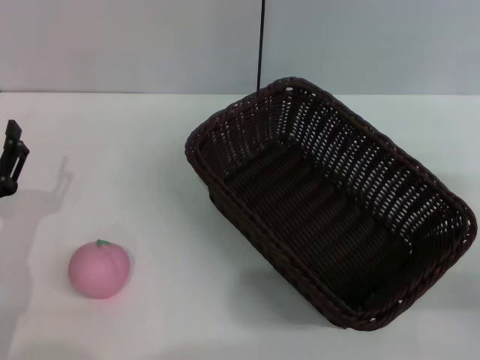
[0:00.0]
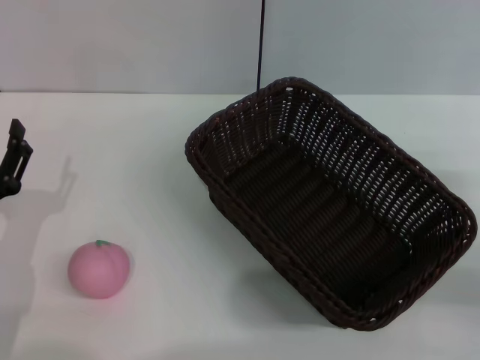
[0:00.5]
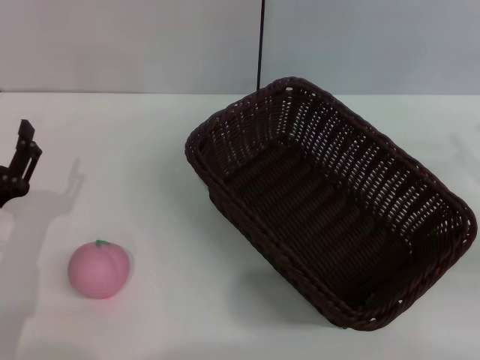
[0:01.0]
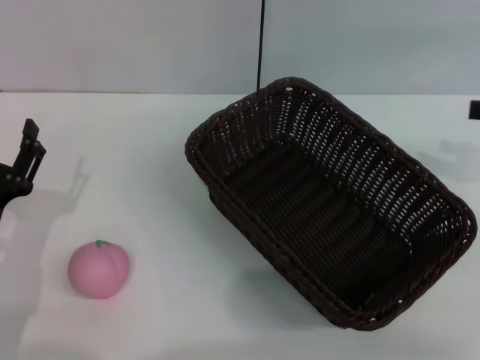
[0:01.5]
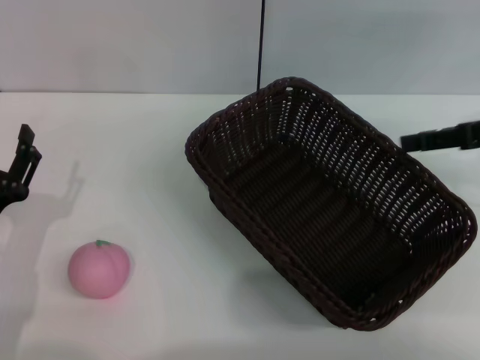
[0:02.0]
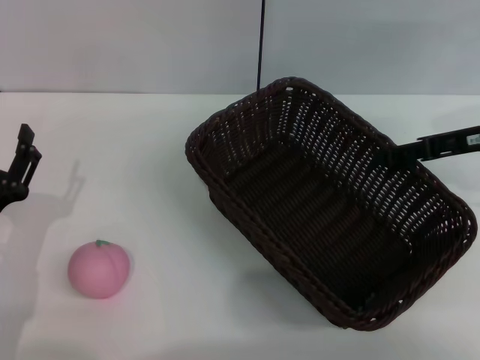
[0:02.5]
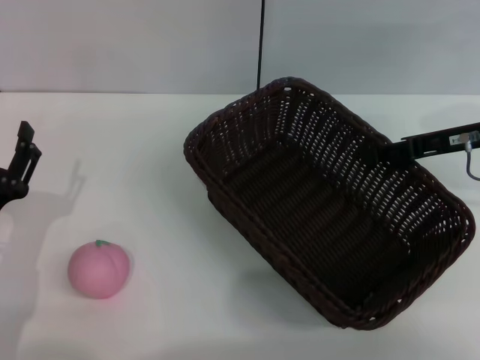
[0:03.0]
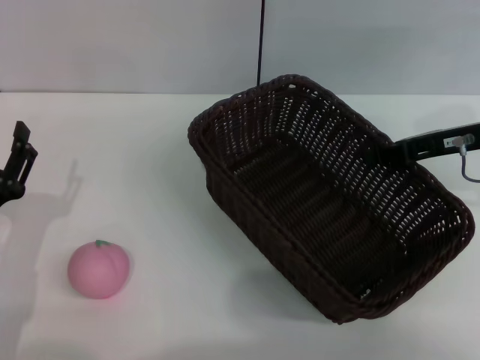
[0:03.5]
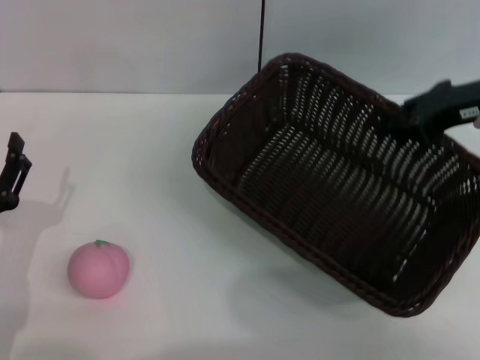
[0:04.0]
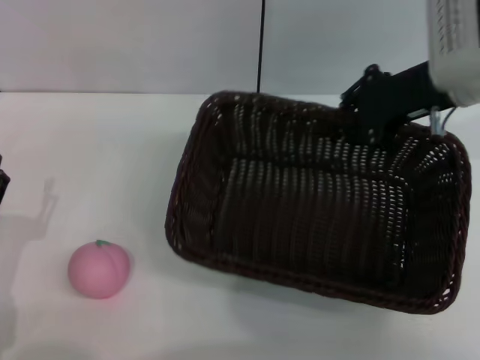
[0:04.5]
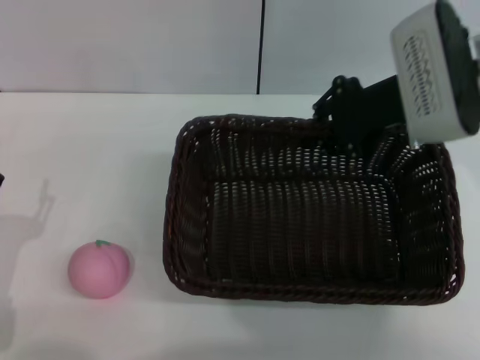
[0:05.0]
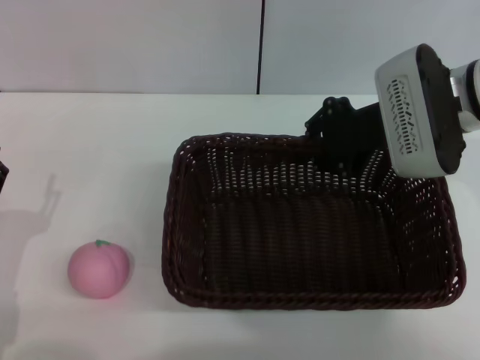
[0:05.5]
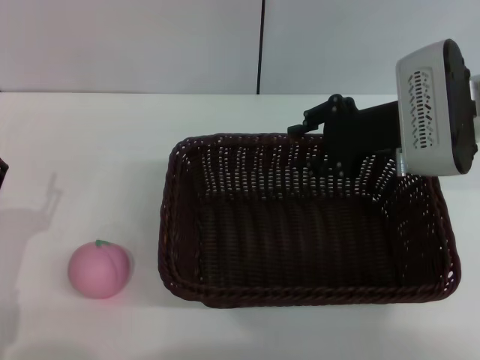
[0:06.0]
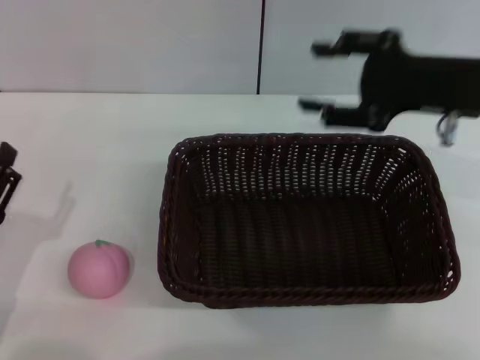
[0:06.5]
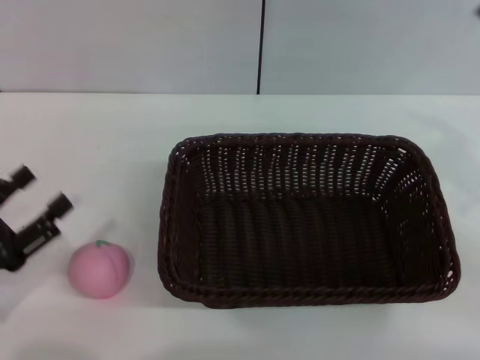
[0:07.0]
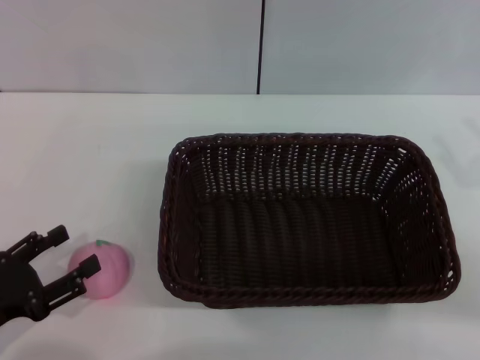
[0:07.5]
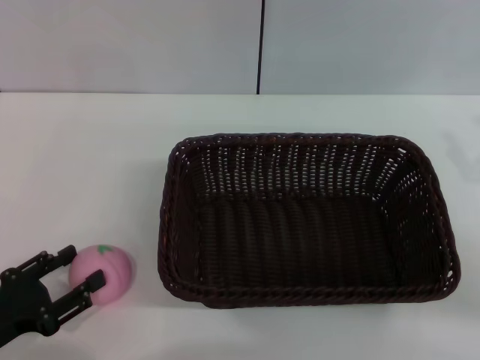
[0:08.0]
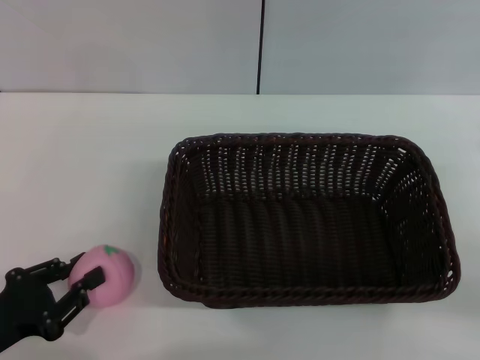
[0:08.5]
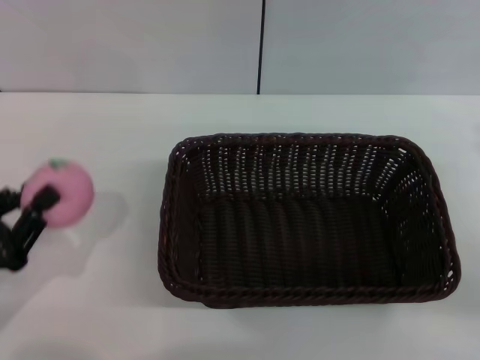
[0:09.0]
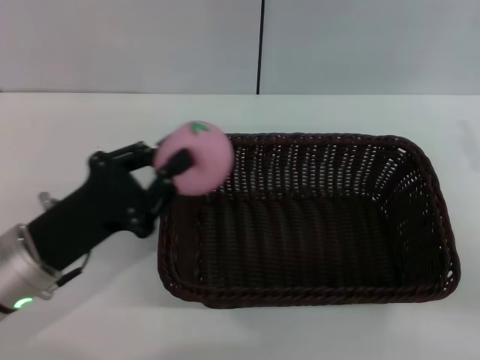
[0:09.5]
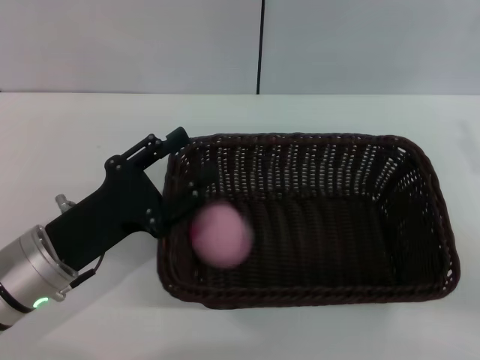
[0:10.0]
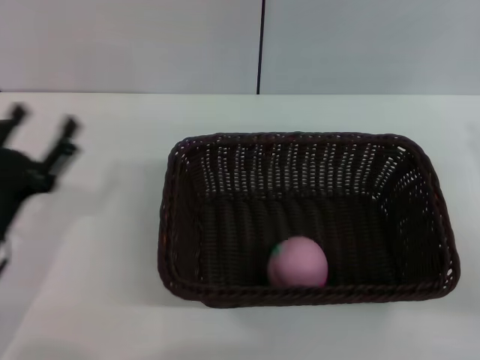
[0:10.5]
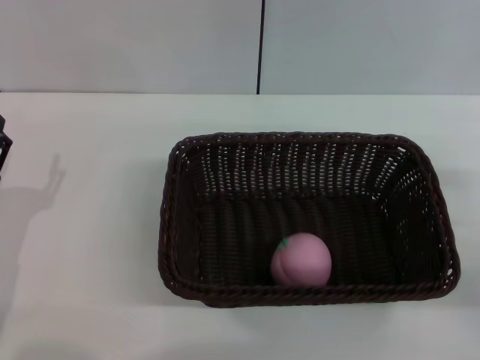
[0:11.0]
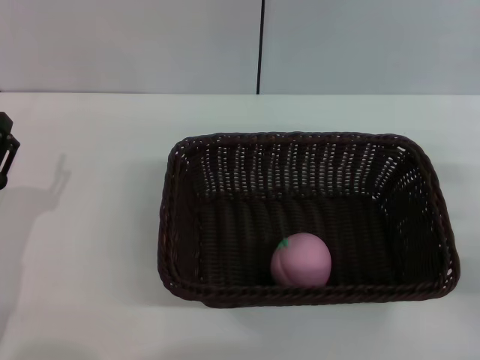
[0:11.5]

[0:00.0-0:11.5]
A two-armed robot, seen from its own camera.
Step, 0:00.0 to 0:04.0: Pick up the dark basket with the right gripper.
Step, 0:04.5 to 0:06.5: Place the dark basket in the center of view with the right gripper.
Step, 0:07.0 to 0:09.0: Pick up the peach with the left gripper.
Step, 0:09.5 to 0:10.0: Place the peach into the basket with the left gripper.
0:00.0 to 0:02.0: The right gripper is displaced forward and upward by approximately 15 cm.
0:02.0 to 0:04.0: The right gripper goes roughly 5 cm to the left, and closes up.
0:04.0 to 0:06.0: The right gripper travels to the left by approximately 10 cm, and opens.
0:06.0 to 0:07.5: The right gripper moves to the right and backward, about 20 cm, and opens.
0:07.5 to 0:09.5: The left gripper goes roughly 10 cm to the right and forward, and closes up.
0:09.5 to 0:11.5: The left gripper shifts about 5 cm to the left, and opens its fingers.

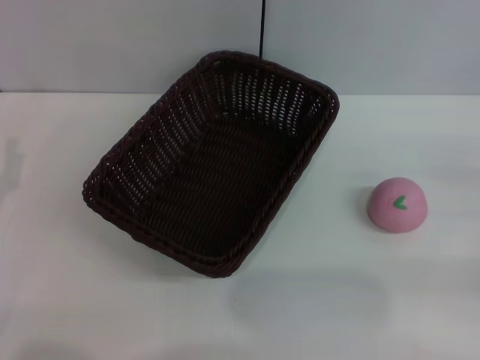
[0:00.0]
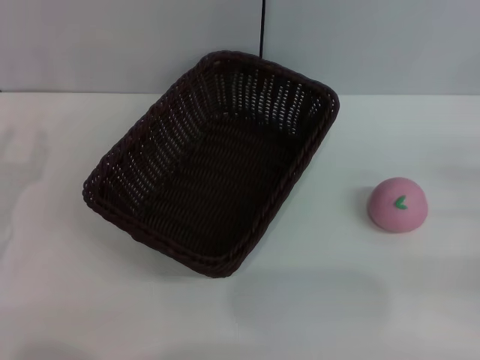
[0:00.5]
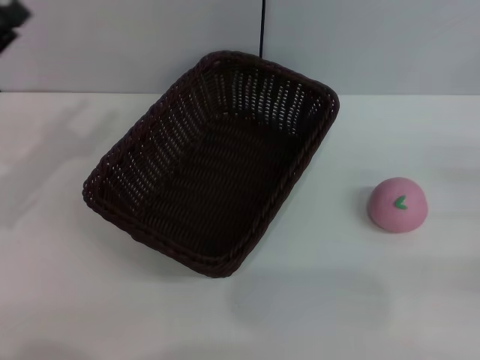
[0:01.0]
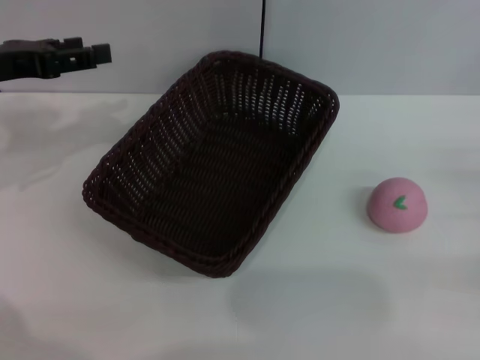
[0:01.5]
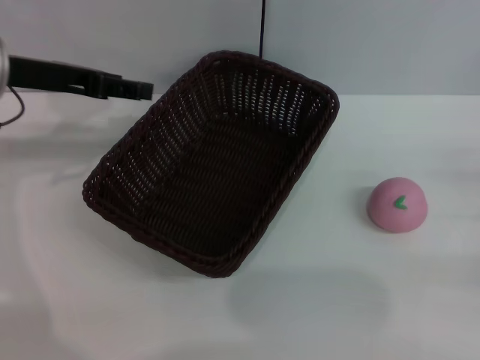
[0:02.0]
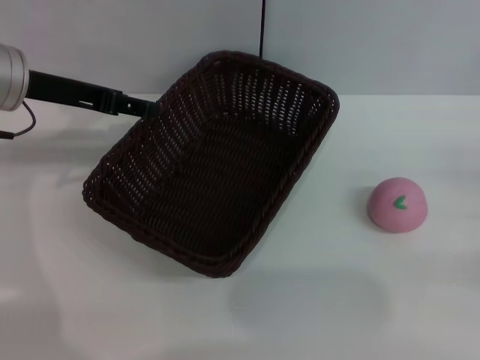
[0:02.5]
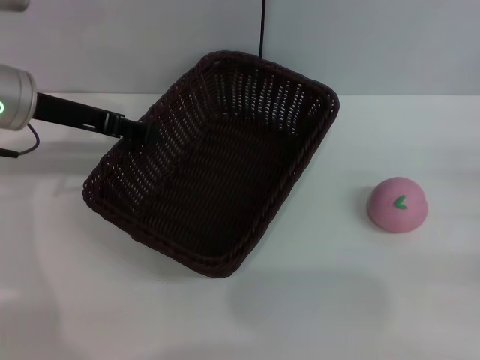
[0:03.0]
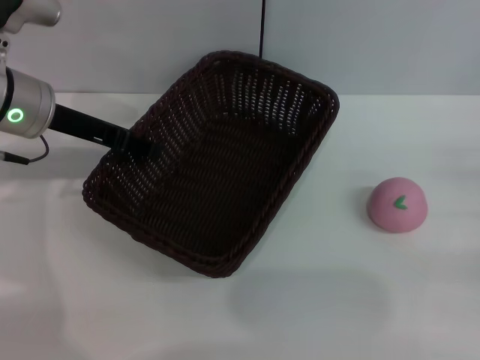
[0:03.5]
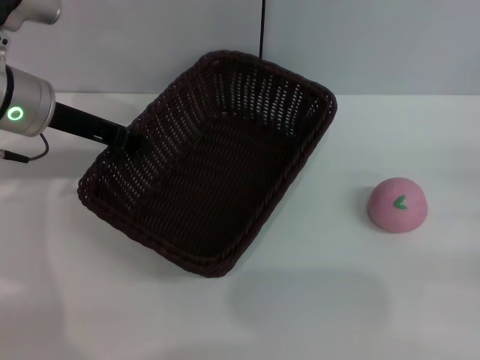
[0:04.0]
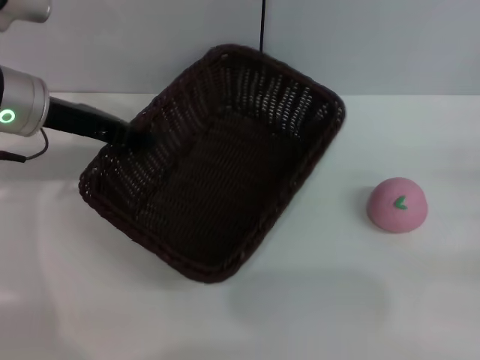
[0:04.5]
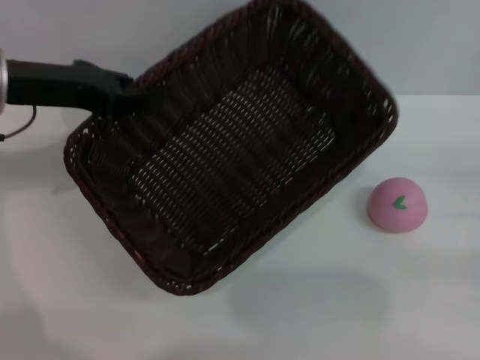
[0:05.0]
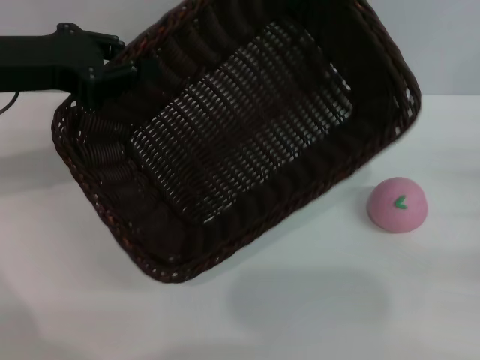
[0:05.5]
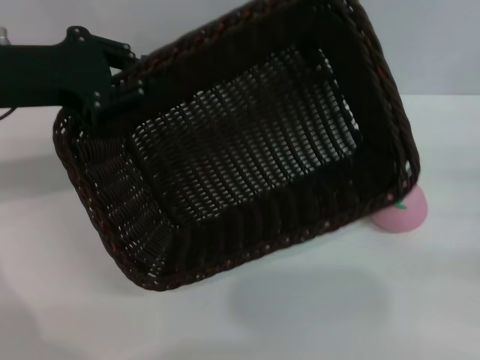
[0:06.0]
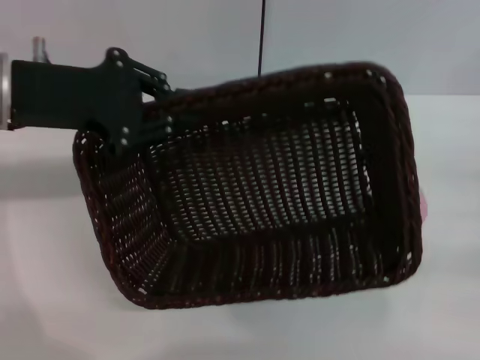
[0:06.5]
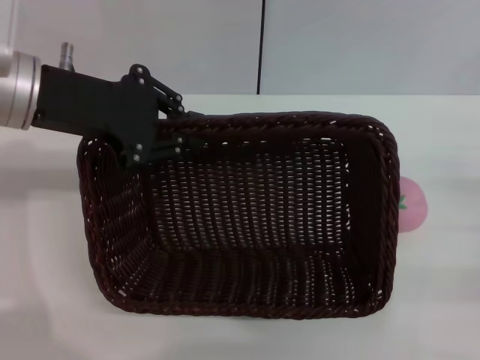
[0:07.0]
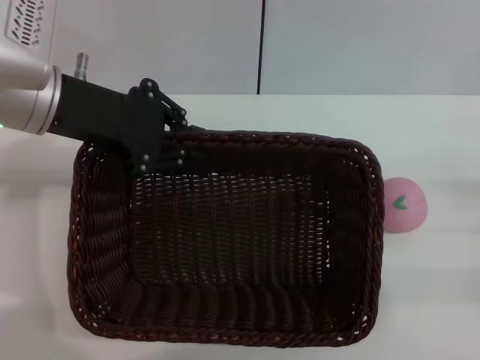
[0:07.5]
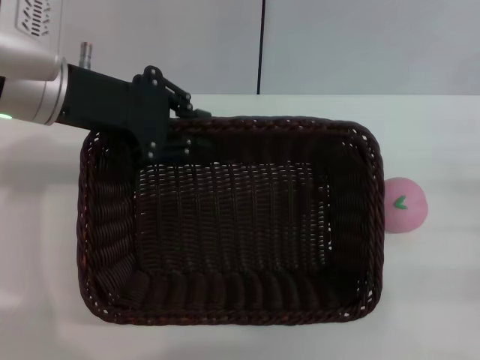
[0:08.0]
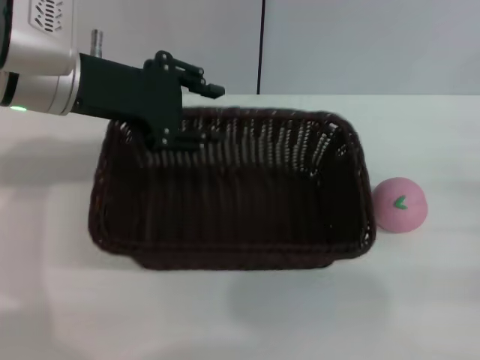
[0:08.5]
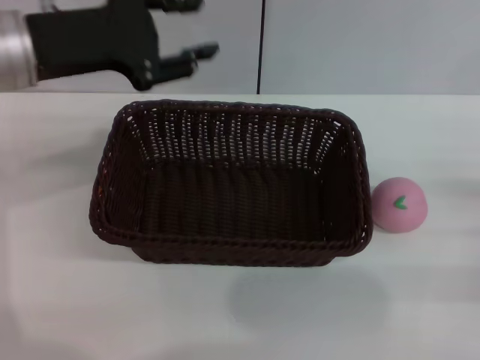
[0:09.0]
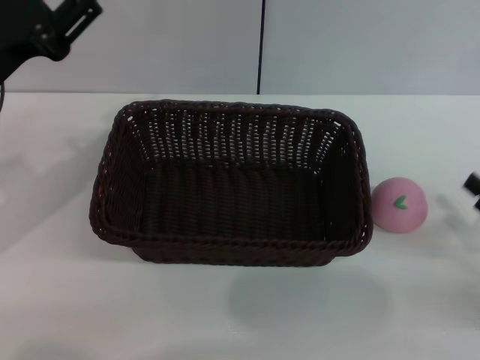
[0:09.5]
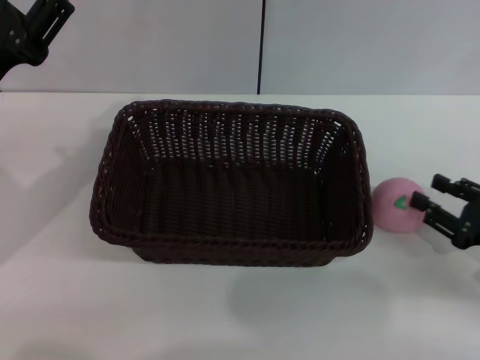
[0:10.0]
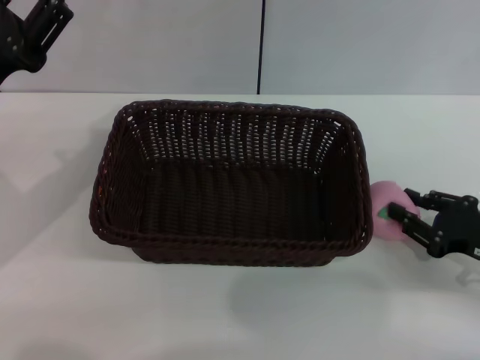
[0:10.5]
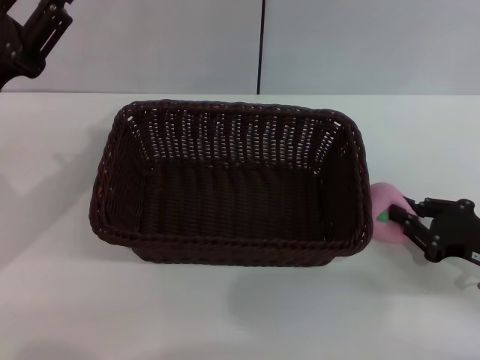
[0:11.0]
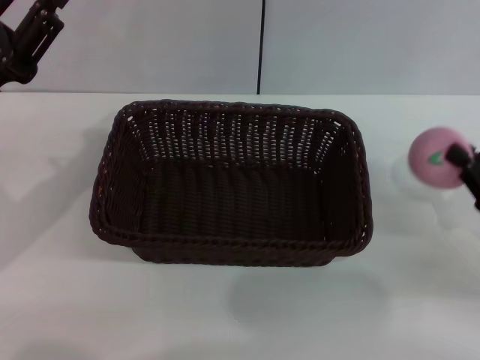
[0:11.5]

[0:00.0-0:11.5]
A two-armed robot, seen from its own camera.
Step, 0:00.0 to 0:04.5: Pick up the dark basket with the left gripper.
Step, 0:05.0 to 0:08.5: Place the dark basket in the center of view with the right gripper.
Step, 0:09.0 to 0:11.5: Pick up the peach with the left gripper.
0:00.0 to 0:02.0: The left gripper heads forward and upward, covering about 20 cm.
0:02.0 to 0:04.0: The left gripper closes its fingers.
0:04.0 to 0:06.0: The left gripper shifts by roughly 5 cm.
0:06.0 to 0:07.5: The left gripper travels to the right by some 5 cm.
0:07.5 to 0:09.5: The left gripper travels to the left by roughly 5 cm, and opens up.
0:09.5 to 0:11.5: The right gripper closes up.

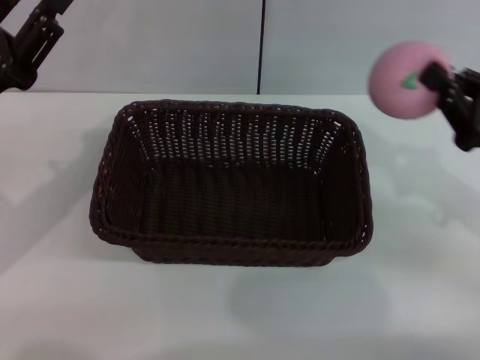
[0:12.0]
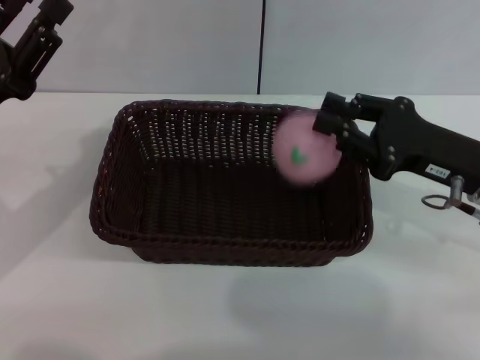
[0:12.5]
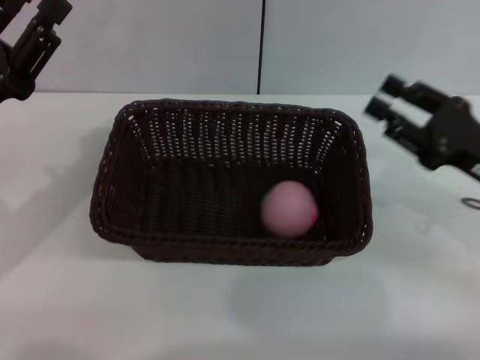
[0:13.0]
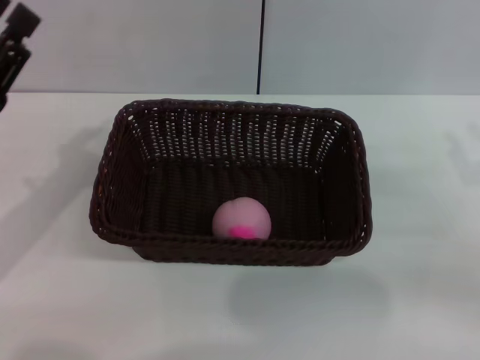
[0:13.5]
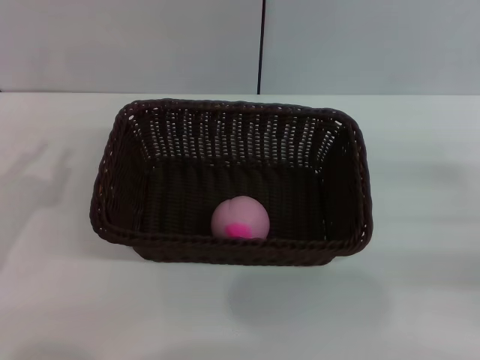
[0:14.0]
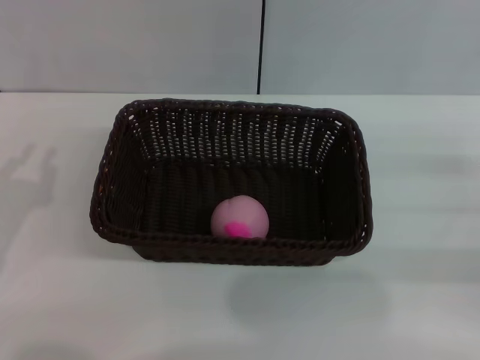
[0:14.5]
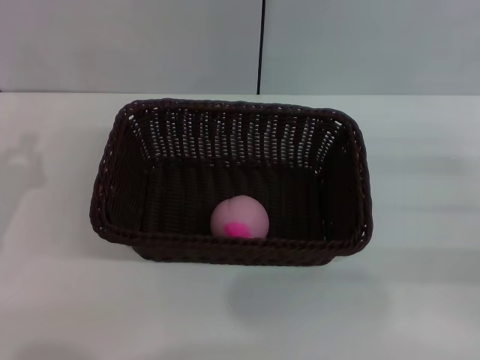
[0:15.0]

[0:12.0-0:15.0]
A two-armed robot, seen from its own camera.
0:12.0 to 0:13.5: The right gripper shifts by roughly 5 cm, and opens.
0:13.5 to 0:15.0: The left gripper changes place by about 5 cm, and closes.
